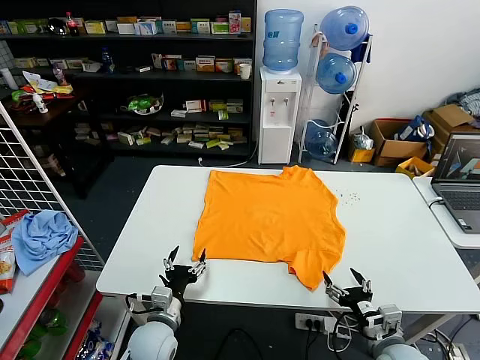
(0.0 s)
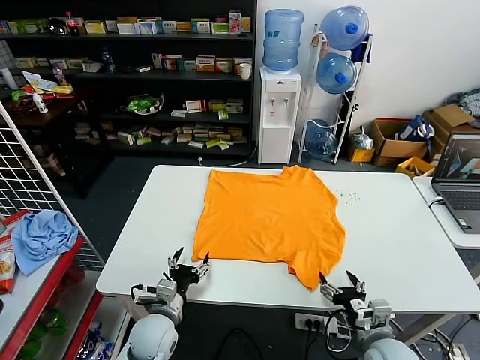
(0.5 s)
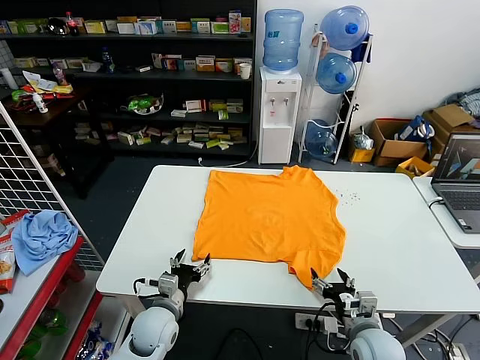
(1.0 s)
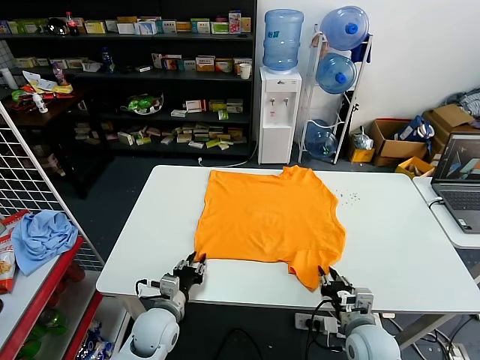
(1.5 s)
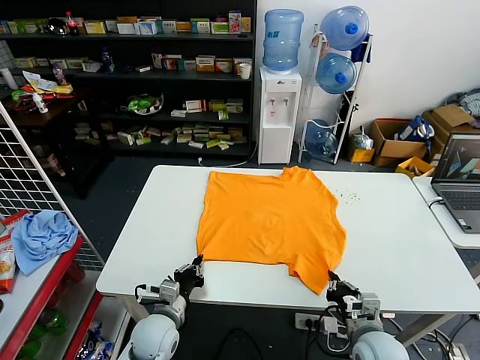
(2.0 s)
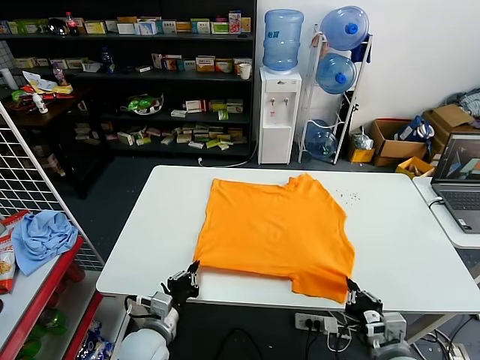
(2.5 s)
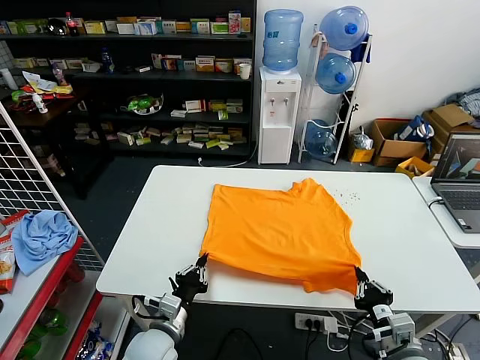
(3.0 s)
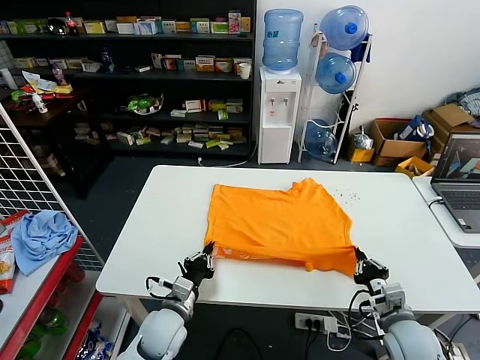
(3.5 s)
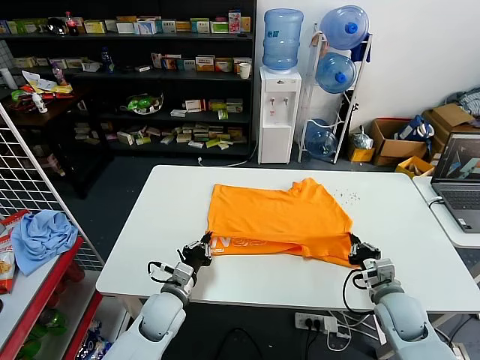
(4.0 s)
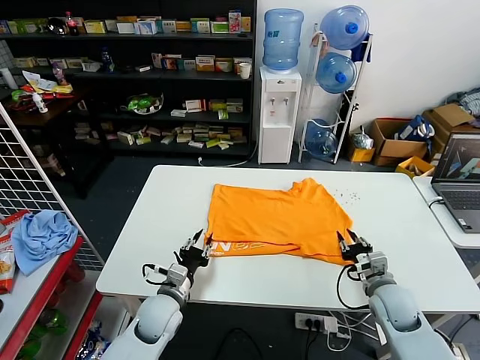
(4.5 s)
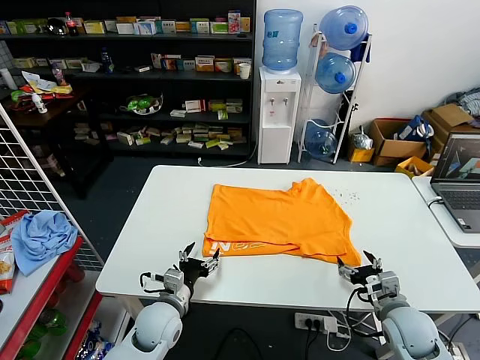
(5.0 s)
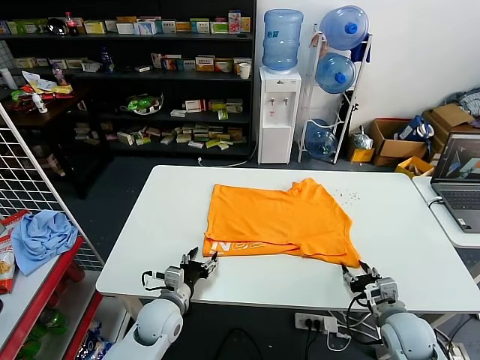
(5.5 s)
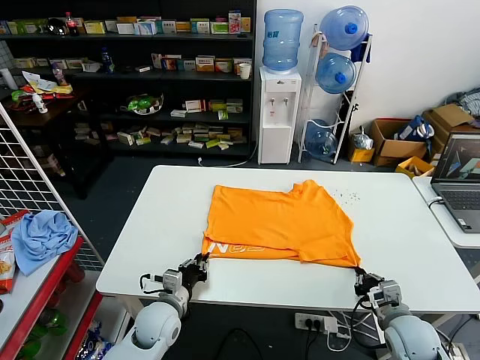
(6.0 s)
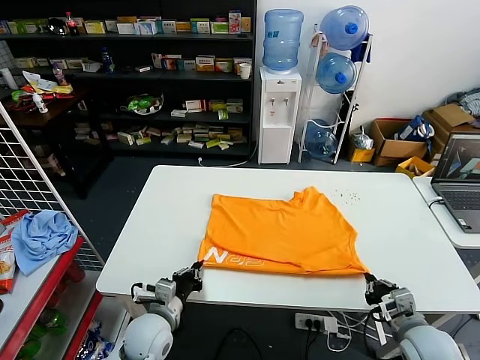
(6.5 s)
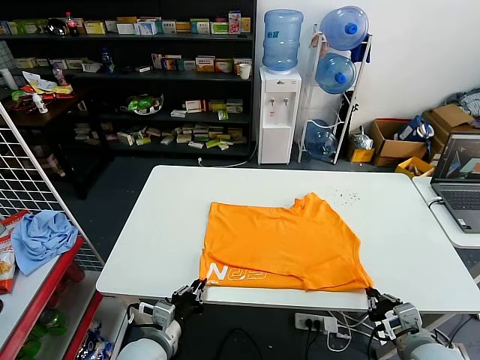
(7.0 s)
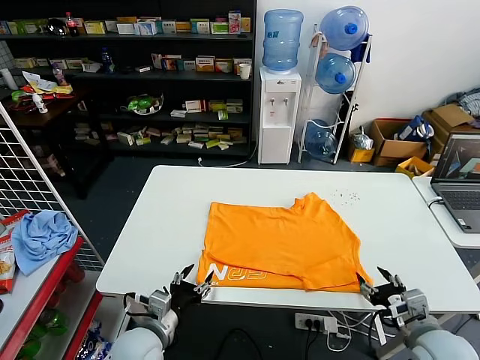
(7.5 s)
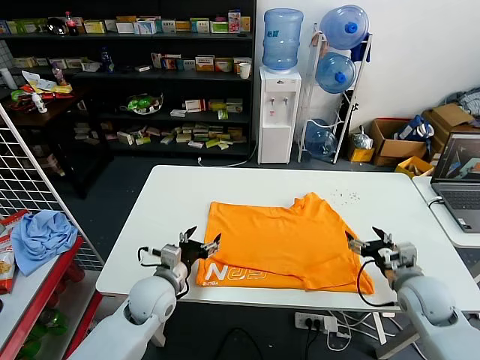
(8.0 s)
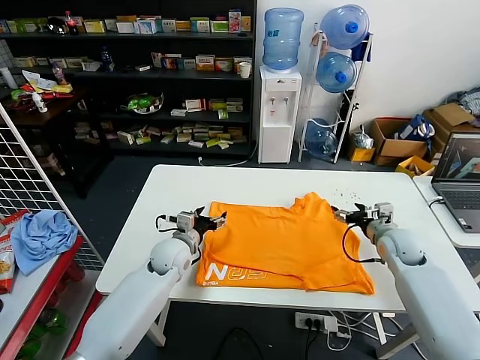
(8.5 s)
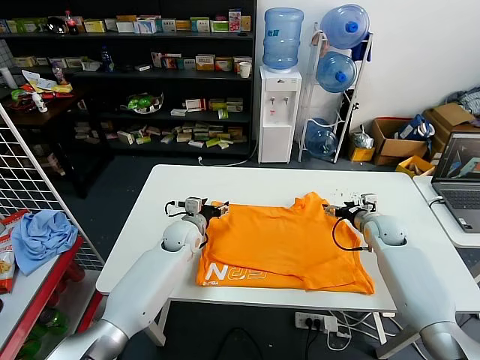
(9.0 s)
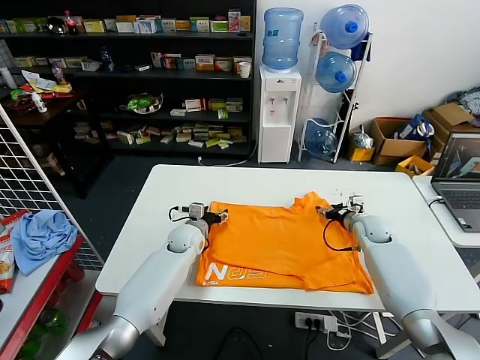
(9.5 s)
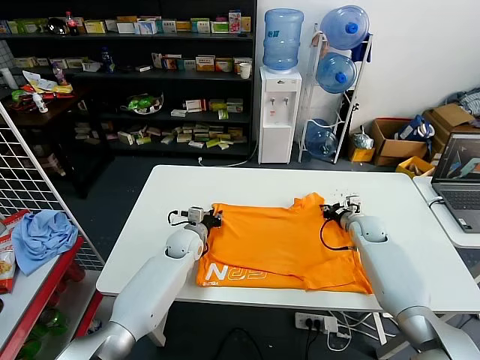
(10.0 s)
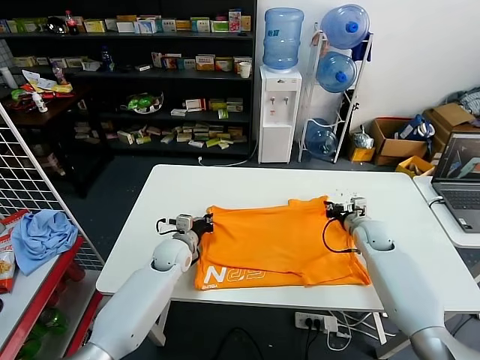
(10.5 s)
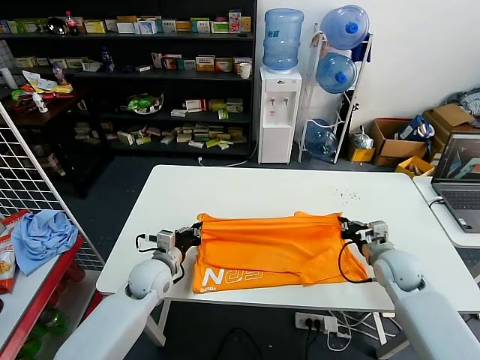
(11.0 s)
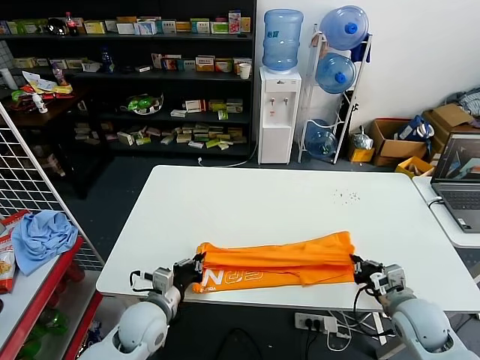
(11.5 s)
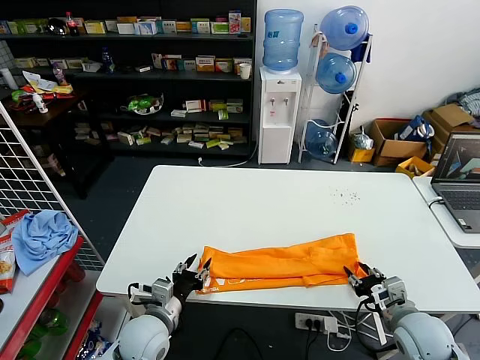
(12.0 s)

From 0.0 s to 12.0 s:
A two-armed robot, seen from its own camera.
Task of the whole recording: fold and organize the clothes.
Step, from 0.0 s to 1.5 s: use both grippers simultaneously to clamp the lower edge of the clothing fabric.
Step, from 2.0 s to 4.5 s: use both grippers to drag the lower edge of the fabric forward and fold it over the upper edge.
Step, from 5.0 s to 7.0 s: Drag the clothes downward with both gripper.
Step, from 7.5 s to 10.0 s: use both grippers simultaneously to clamp the upper edge of the clothing fabric.
Step, from 11.0 s to 11.5 s: use both grippers to drag the upper edge of the fabric backward and fold it over the lower edge.
From 2.0 s to 4.0 s: The right gripper heads forward and to the right, covering about 10 cm.
From 4.0 s to 6.0 s: The right gripper opens and closes again, while the left gripper opens, then closes once more.
From 6.0 s to 8.0 s: The left gripper moves upward, roughly 5 cm, reaches roughly 10 cm backward, then returns, and opens; the right gripper goes roughly 10 cm upward and forward, and opens its fingers.
From 8.0 s to 10.0 s: Both grippers travel together forward, approximately 20 cm. The left gripper closes, while the right gripper closes up.
From 10.0 s to 12.0 s: Both grippers move backward, roughly 25 cm. The right gripper opens up; the left gripper closes, then reopens.

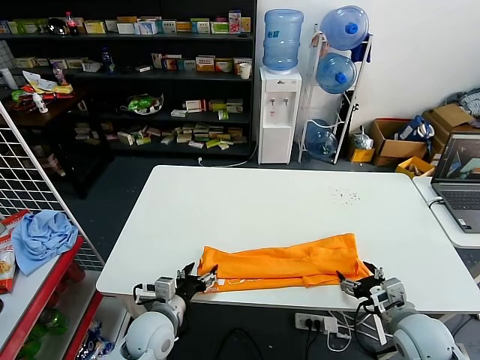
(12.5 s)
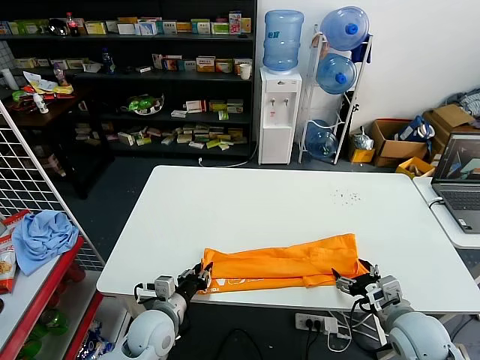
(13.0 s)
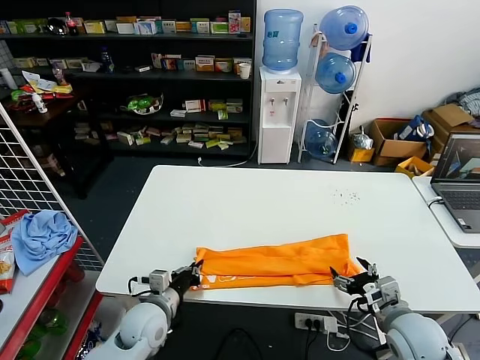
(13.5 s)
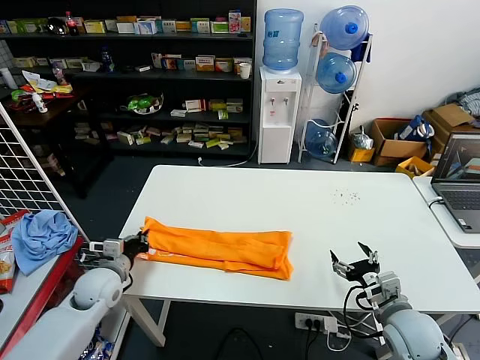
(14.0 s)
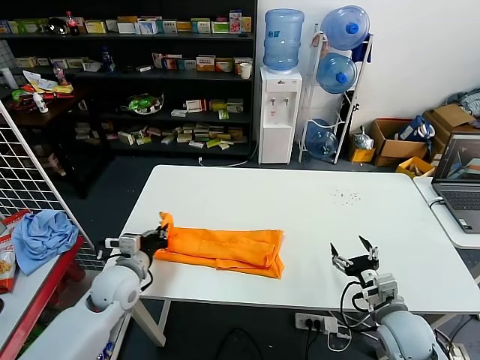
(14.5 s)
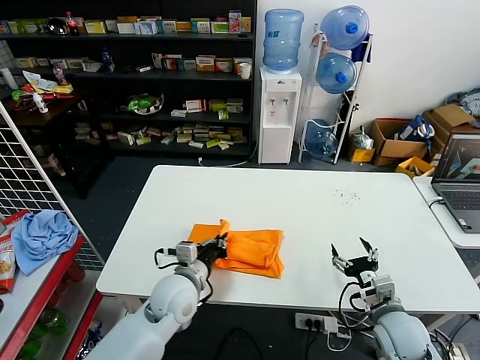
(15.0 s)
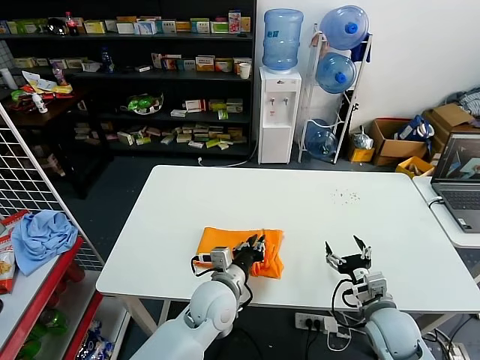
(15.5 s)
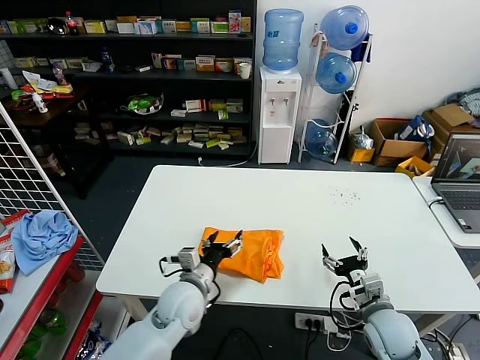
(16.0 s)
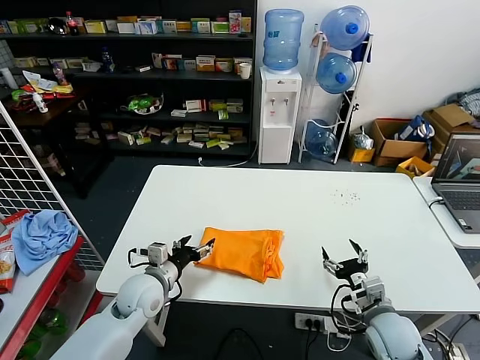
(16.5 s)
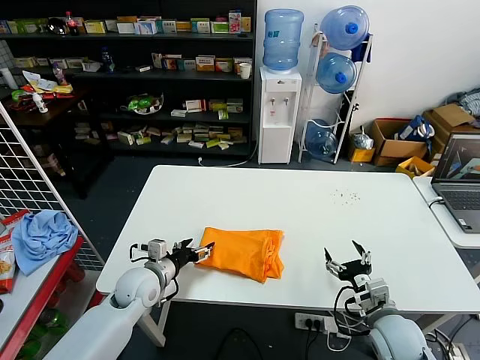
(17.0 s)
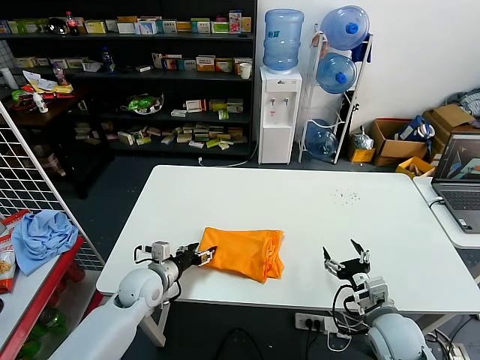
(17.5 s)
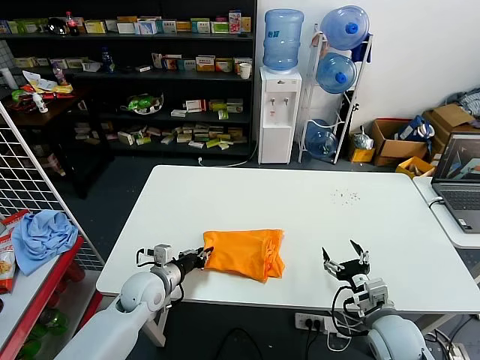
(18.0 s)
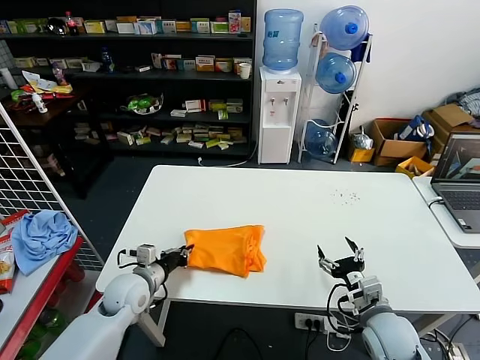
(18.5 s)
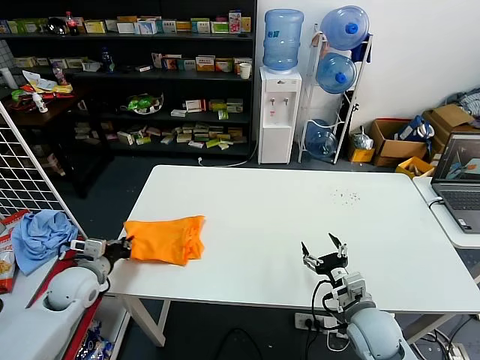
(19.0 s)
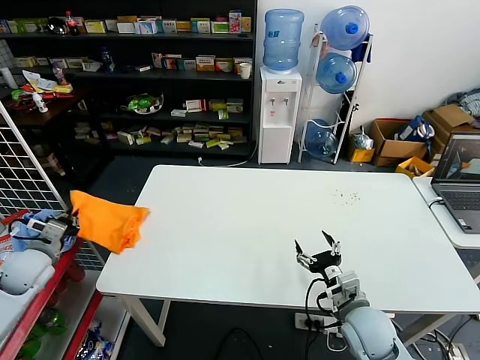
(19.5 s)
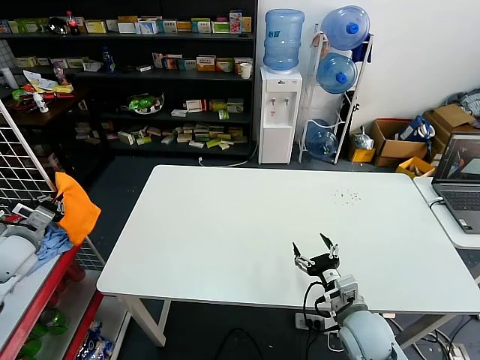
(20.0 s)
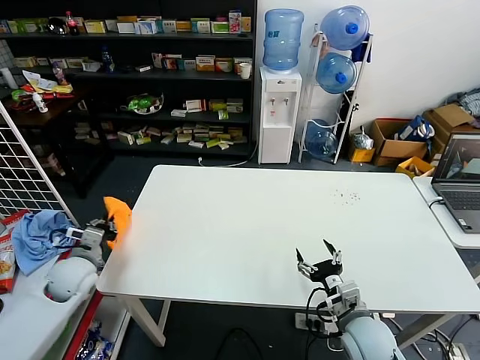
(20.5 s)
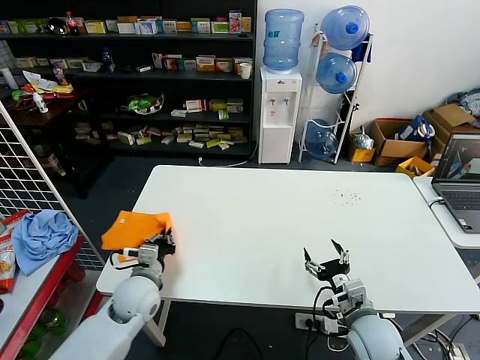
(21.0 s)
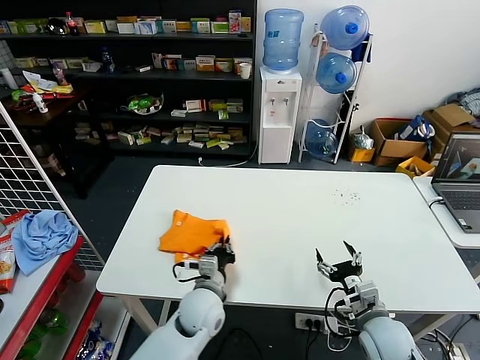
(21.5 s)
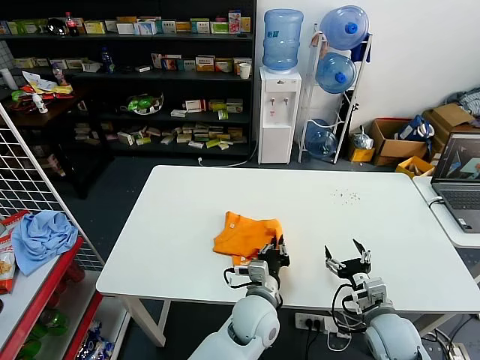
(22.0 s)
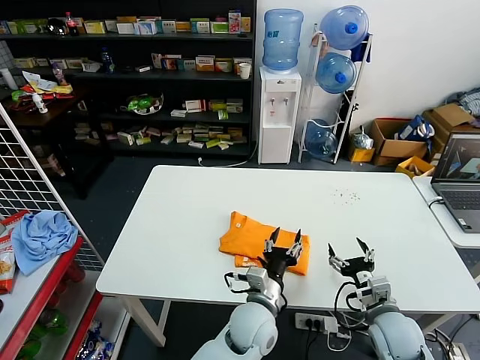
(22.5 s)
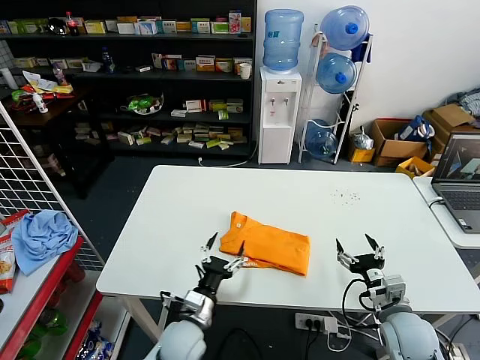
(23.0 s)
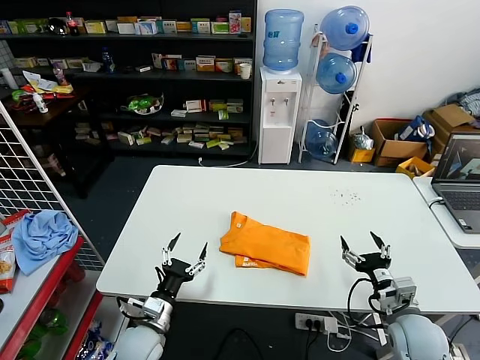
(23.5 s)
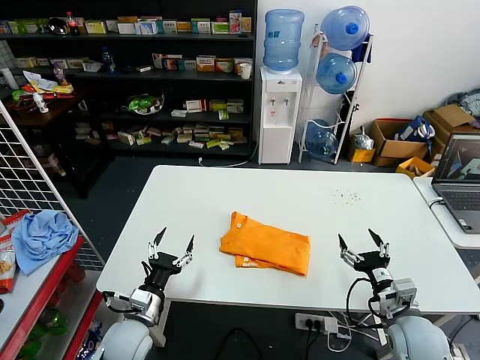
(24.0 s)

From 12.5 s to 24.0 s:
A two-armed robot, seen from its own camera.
Task of the whole recording: fold and organize the clothes.
Step, from 13.5 s to 15.5 s: use the left gripper to drag the left edge of the fabric to the left and folds it over the right edge.
Step, from 16.0 s to 22.0 s: Flip the folded clothes over with left gripper.
From 12.5 s to 14.5 s: The left gripper shifts some 15 cm to the left, forward and upward, and closes.
From 14.5 s to 16.5 s: The left gripper goes to the right and returns, some 25 cm each way, and opens its fingers.
From 16.5 s to 18.5 s: The left gripper closes its fingers.
From 18.5 s to 20.0 s: The left gripper heads to the left and upward, covering roughly 25 cm. The right gripper goes roughly 5 cm to the left.
From 20.0 s to 22.0 s: The right gripper shifts approximately 5 cm to the right, while the left gripper is displaced to the right by roughly 50 cm.
From 22.0 s to 24.0 s: The left gripper heads to the left, covering approximately 25 cm, and opens its fingers.
